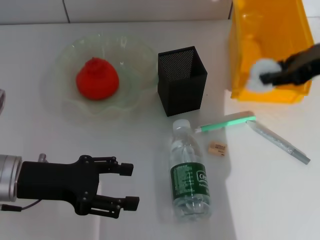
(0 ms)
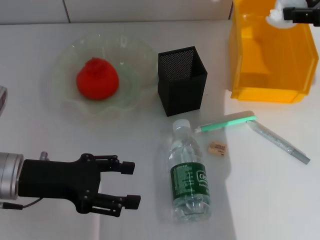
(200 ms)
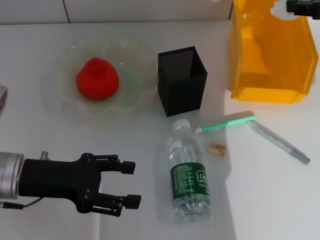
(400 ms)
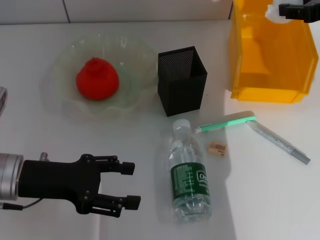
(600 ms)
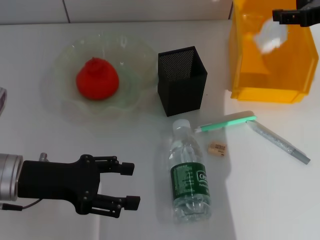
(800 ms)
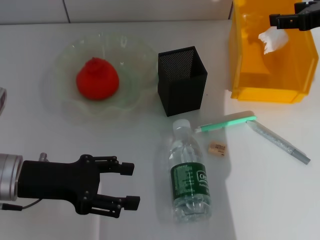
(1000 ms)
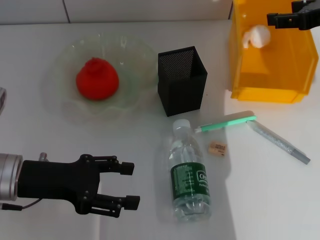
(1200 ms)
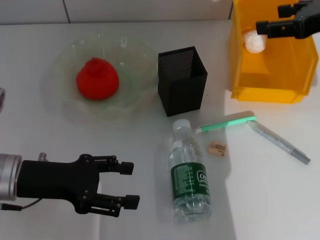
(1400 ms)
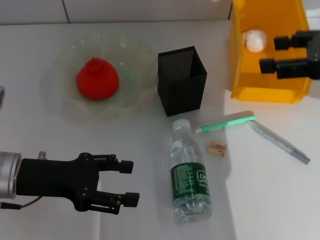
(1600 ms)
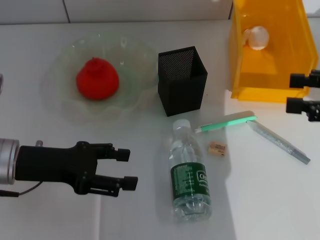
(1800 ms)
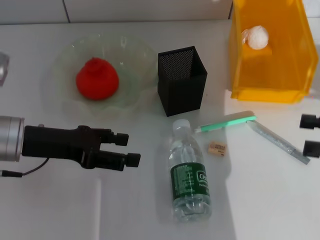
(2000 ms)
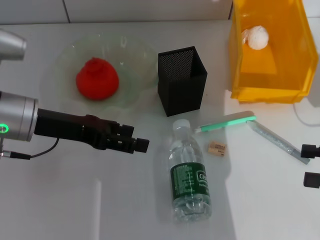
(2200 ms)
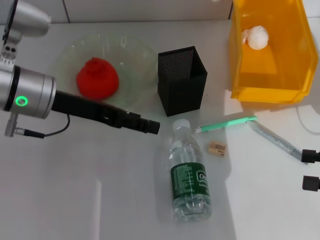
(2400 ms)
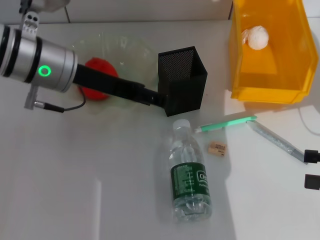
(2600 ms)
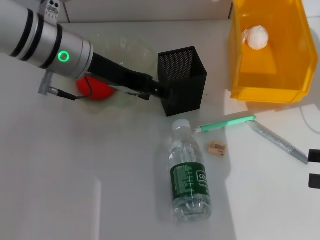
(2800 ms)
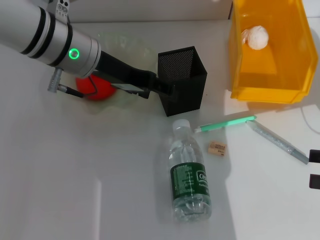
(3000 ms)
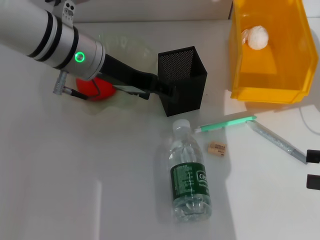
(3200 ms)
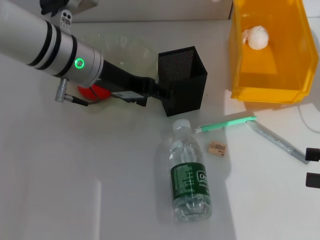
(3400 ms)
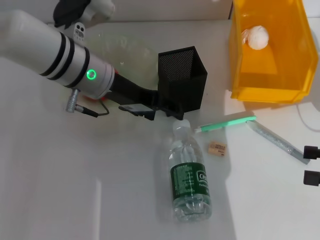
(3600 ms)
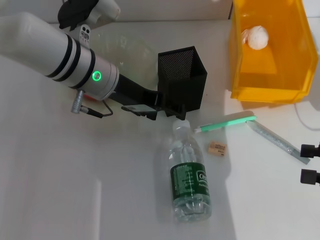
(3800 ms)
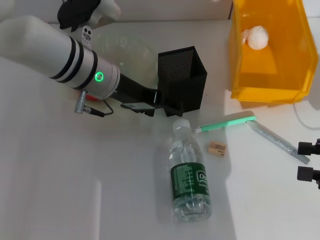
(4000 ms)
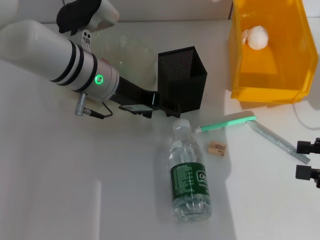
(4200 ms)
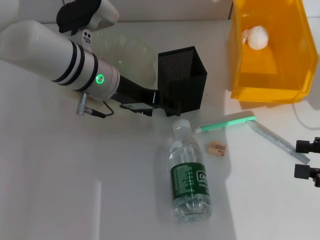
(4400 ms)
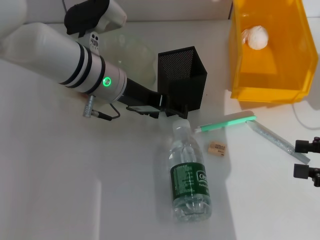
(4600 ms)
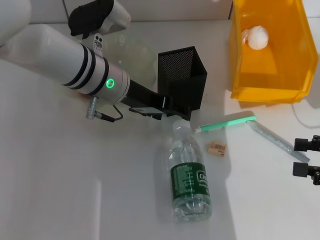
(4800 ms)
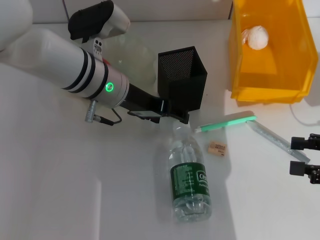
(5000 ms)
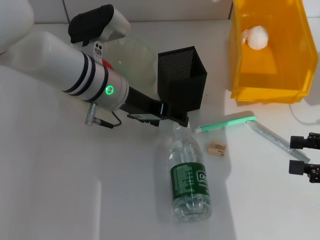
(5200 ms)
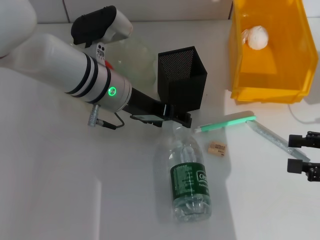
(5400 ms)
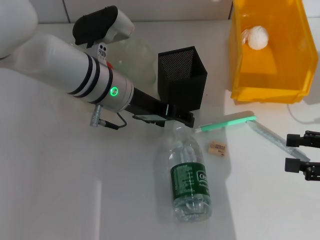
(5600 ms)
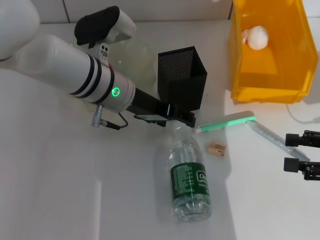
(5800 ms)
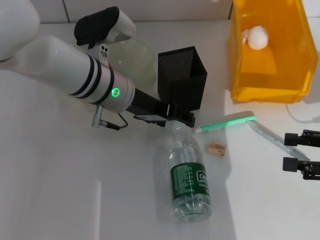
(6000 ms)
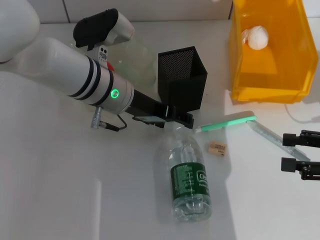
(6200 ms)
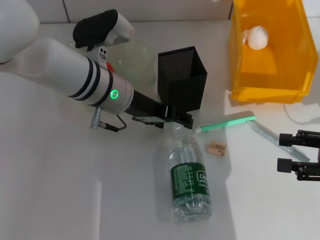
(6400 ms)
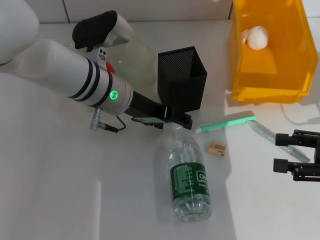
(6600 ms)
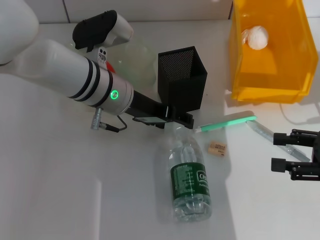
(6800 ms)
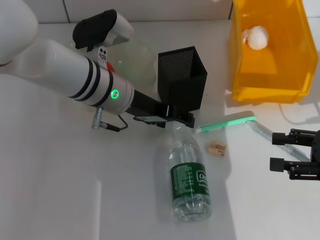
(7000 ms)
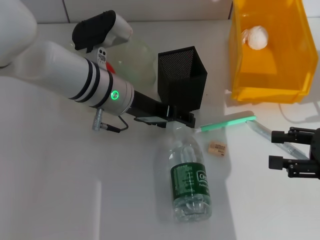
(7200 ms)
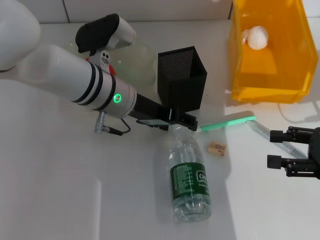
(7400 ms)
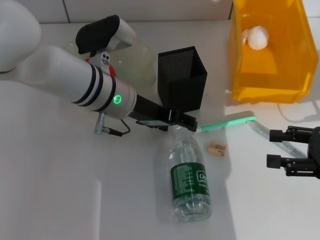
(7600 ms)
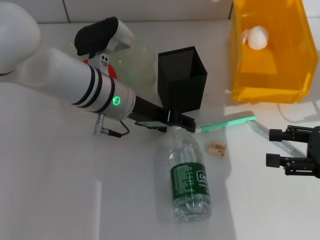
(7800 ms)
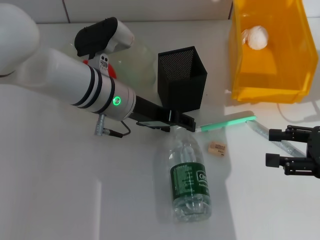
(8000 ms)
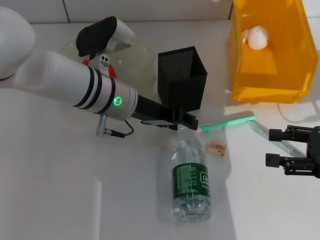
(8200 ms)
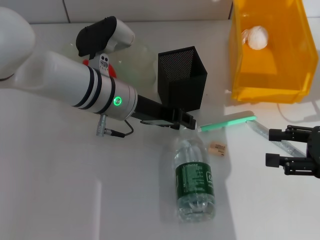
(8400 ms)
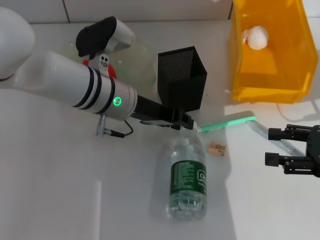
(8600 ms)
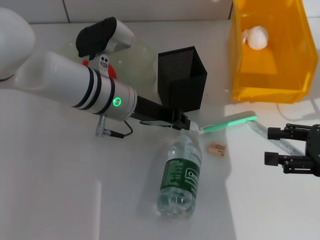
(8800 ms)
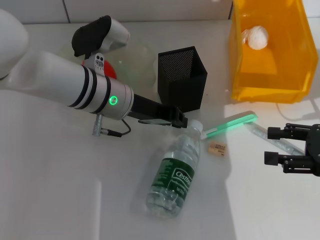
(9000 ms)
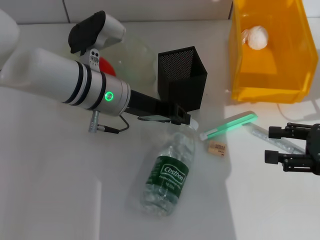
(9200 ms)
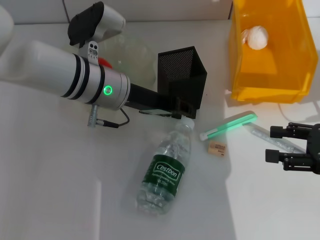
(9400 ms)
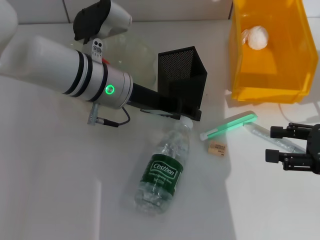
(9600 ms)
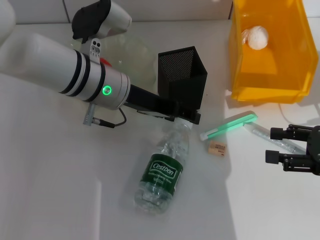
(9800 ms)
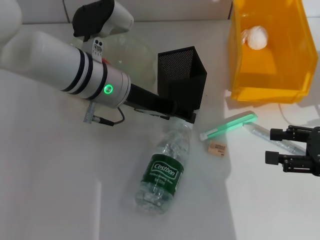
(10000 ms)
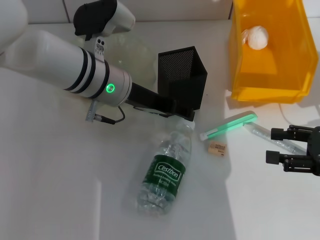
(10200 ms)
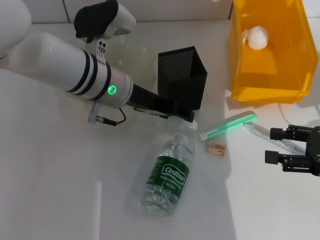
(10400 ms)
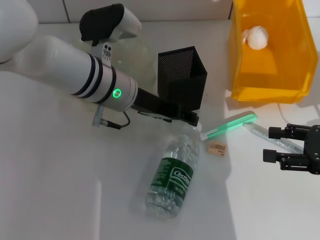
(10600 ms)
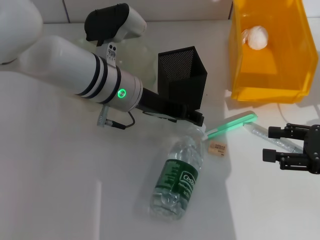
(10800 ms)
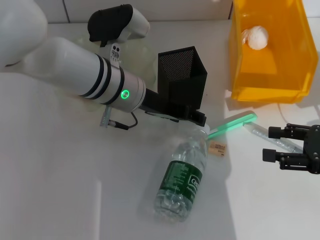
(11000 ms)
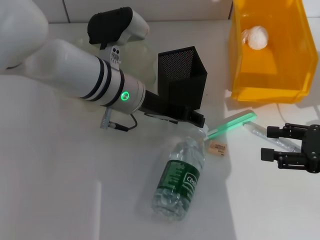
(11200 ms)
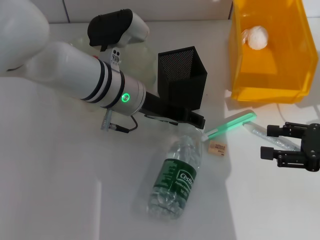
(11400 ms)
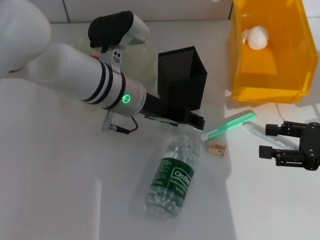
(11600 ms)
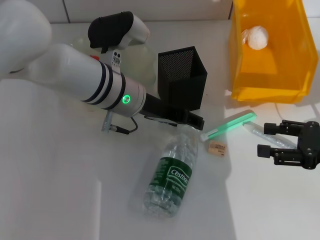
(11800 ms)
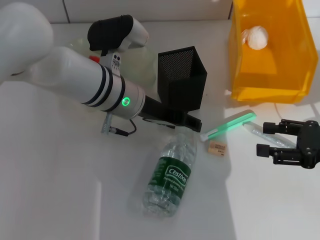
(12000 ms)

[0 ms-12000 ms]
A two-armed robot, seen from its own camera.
Step, 0 ms to 1200 ms: Place the paper ball into the trash can with the right hand.
0 ms to 1600 ms: The right gripper shifts by some 5 cm, and opens up.
1600 ms to 3000 ms: The left gripper shifts approximately 20 cm forward, to the right and upward; the right gripper shifts approximately 20 cm downward, backward and to the right.
3000 ms to 4400 ms: The left gripper shifts by roughly 5 cm.
4400 ms to 7600 ms: The grippers make only small movements.
7600 ms to 9000 ms: The left gripper closes up.
9000 ms to 10400 ms: The left gripper opens up.
10400 ms to 12000 ms: The grippers move only a little.

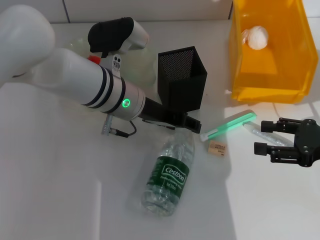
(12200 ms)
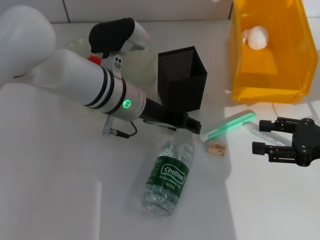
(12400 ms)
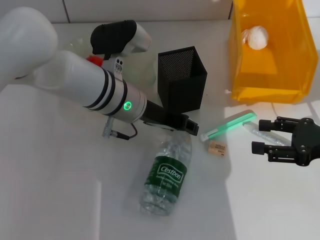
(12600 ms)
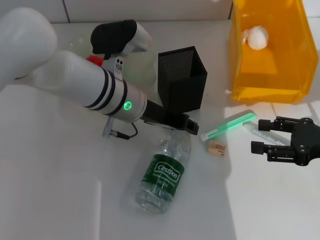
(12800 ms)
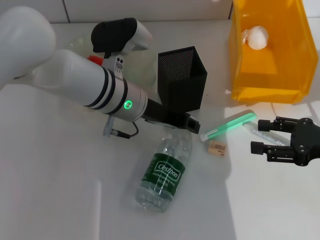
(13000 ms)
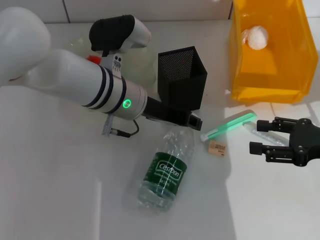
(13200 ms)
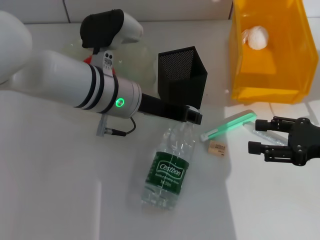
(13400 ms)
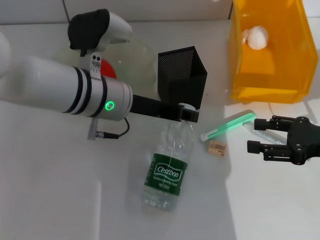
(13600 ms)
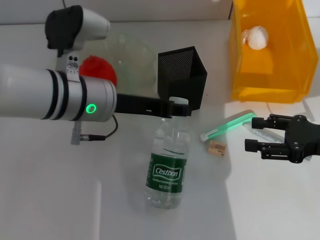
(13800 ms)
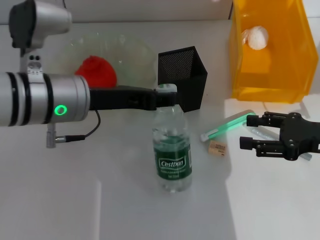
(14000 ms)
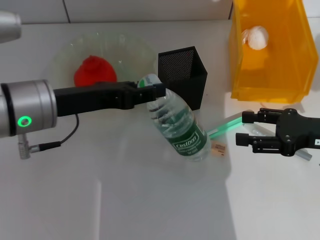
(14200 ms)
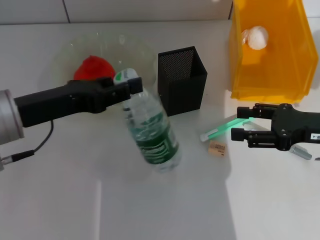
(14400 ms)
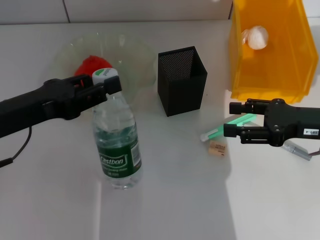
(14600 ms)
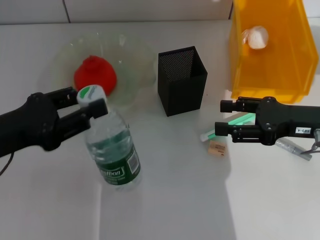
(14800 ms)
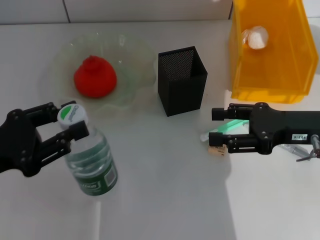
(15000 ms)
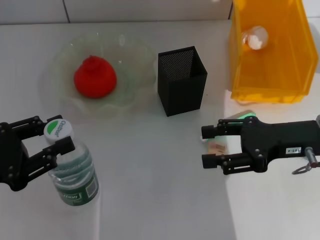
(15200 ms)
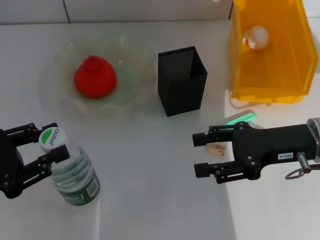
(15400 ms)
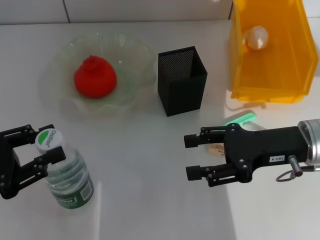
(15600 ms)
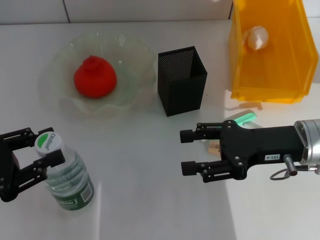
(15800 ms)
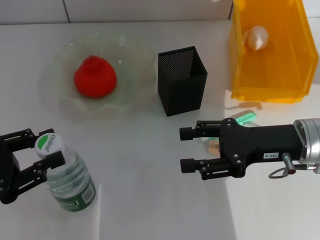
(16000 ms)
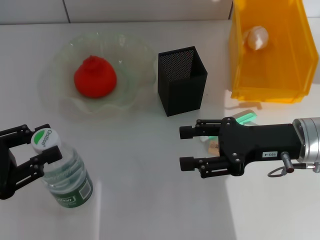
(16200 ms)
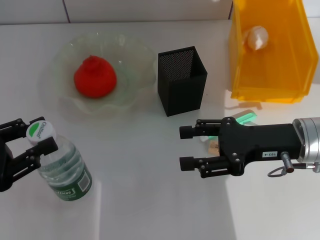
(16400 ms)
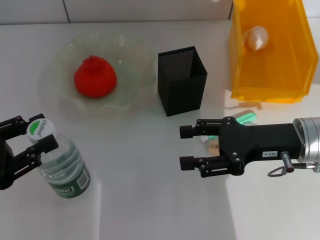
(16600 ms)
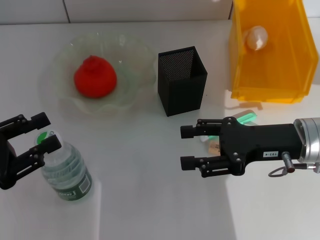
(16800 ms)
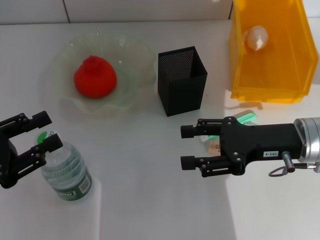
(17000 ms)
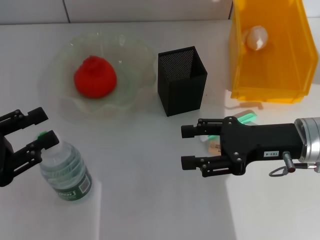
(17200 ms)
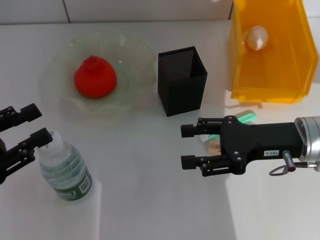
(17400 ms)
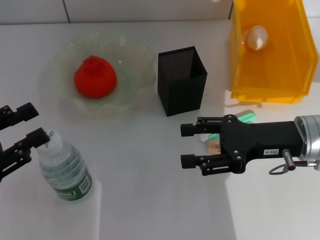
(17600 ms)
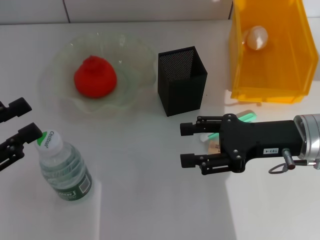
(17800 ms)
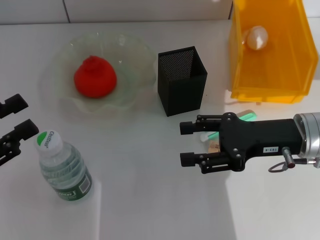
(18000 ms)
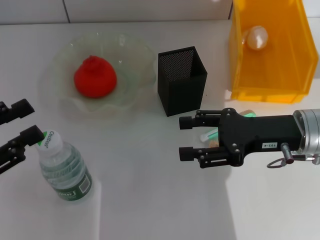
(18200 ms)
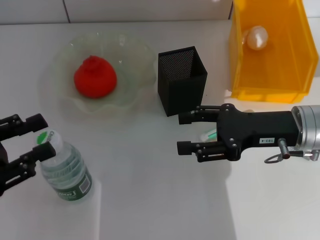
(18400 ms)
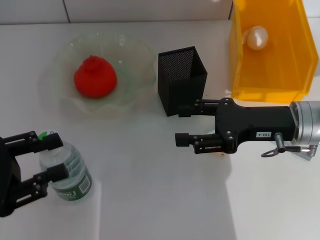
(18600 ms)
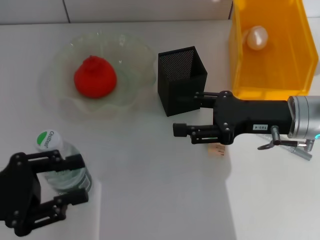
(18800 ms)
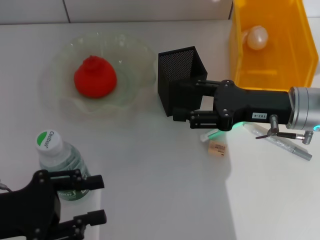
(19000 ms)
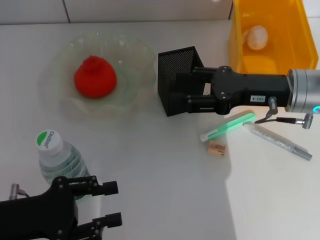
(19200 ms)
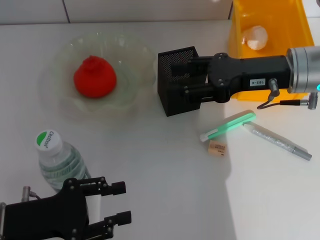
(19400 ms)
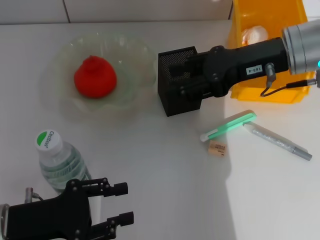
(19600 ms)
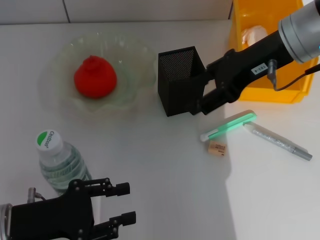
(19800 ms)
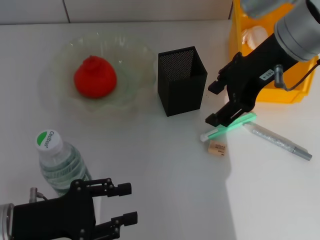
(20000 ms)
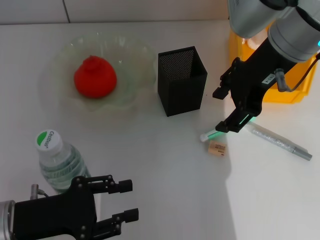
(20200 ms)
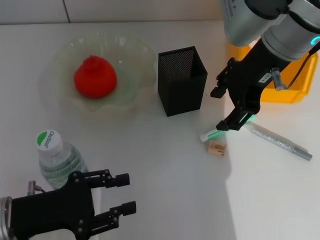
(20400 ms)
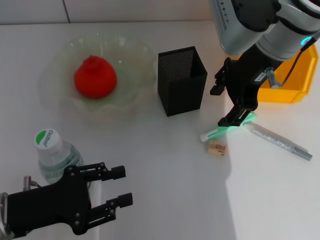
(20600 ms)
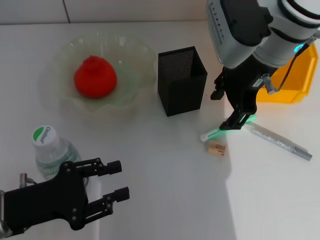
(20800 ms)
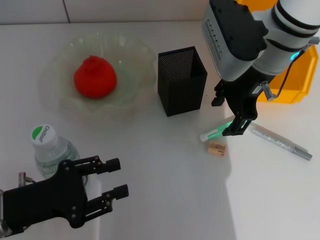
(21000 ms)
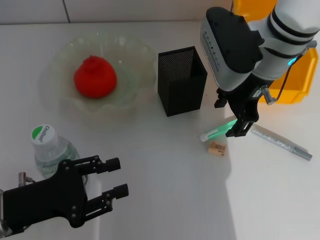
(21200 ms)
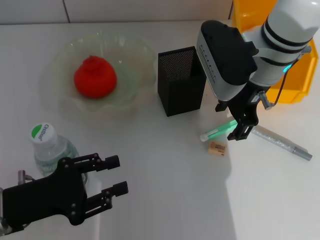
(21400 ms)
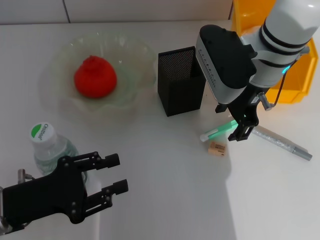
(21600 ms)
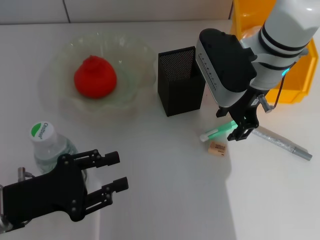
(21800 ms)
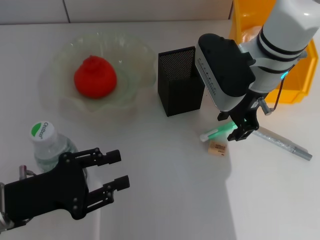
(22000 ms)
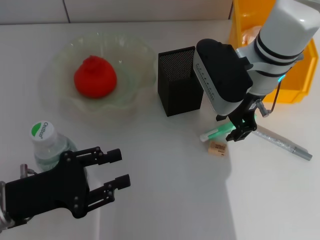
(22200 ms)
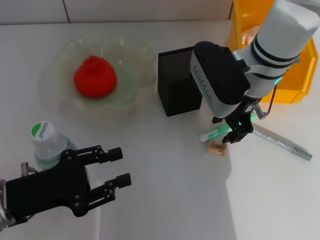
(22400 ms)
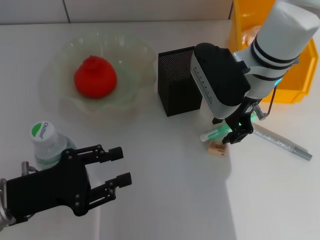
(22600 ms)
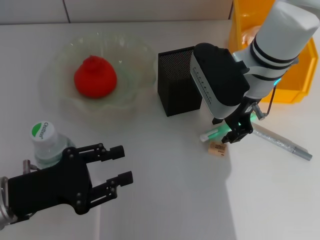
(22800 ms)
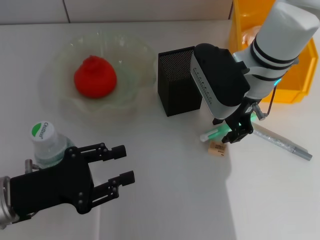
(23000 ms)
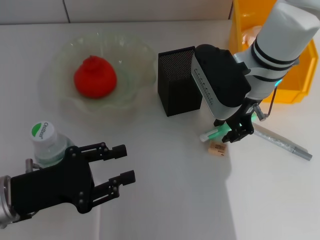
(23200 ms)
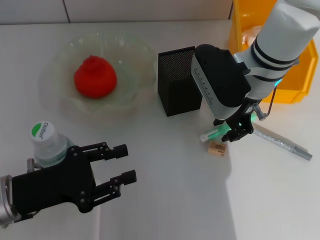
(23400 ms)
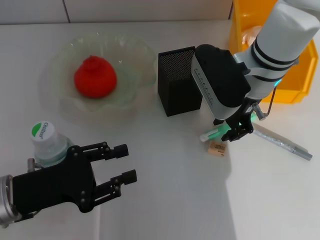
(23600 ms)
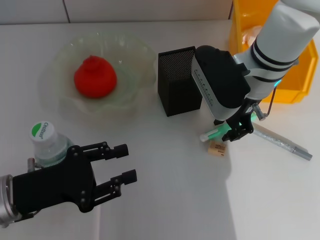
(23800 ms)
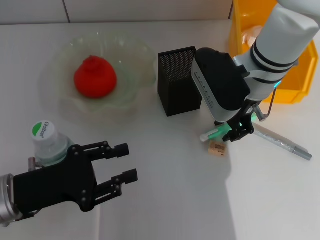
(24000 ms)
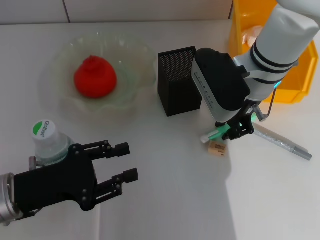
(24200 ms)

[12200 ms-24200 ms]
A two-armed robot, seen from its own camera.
Step, 13000 ms to 17400 ms: Place the water bottle on the table with the left hand.
12200 ms to 13800 ms: The left gripper shifts by approximately 5 cm, and closes.
13800 ms to 15200 ms: The right gripper travels to the left by about 5 cm, while the left gripper heads to the left and backward, covering about 20 cm.
15200 ms to 18200 ms: There are only small adjustments of the grippers.
18200 ms to 19800 ms: The right gripper goes some 15 cm upward and forward. Meanwhile the left gripper travels to the right and downward by some 10 cm.
19800 ms to 21200 ms: The right gripper moves about 5 cm.
21200 ms to 22600 ms: There are only small adjustments of the grippers.
22600 ms to 24200 ms: The two grippers keep their place.
